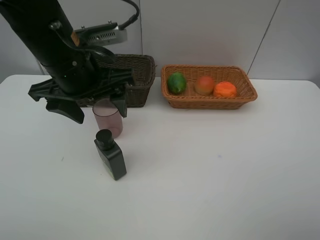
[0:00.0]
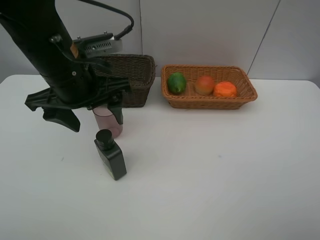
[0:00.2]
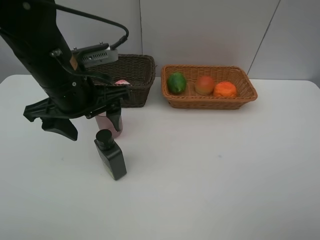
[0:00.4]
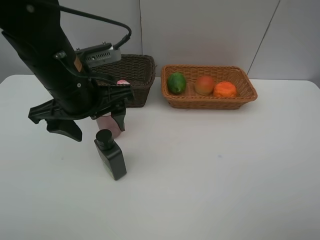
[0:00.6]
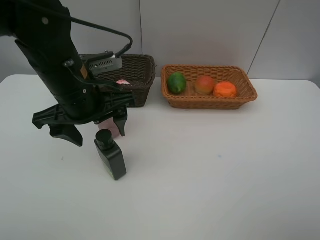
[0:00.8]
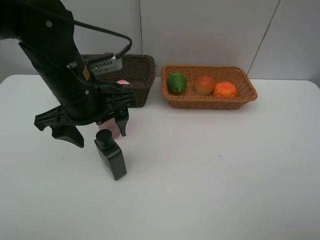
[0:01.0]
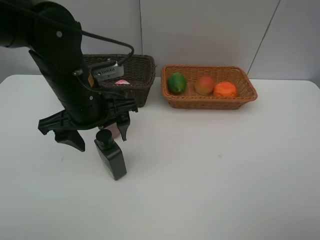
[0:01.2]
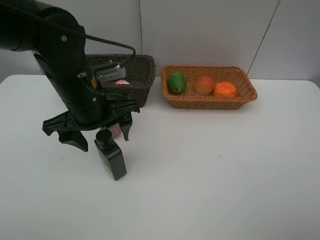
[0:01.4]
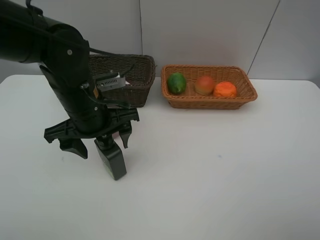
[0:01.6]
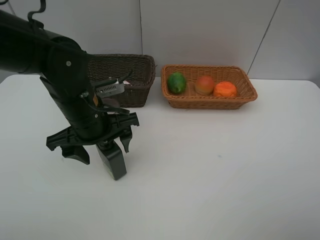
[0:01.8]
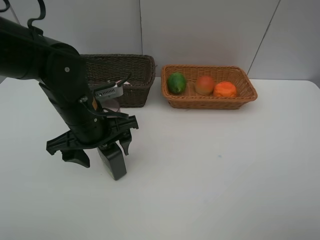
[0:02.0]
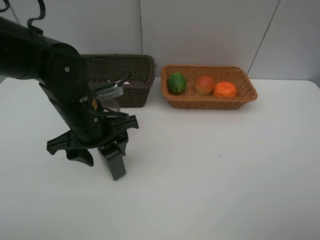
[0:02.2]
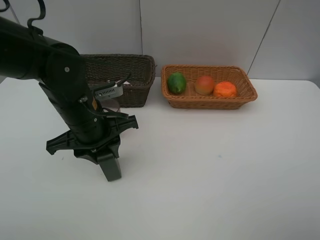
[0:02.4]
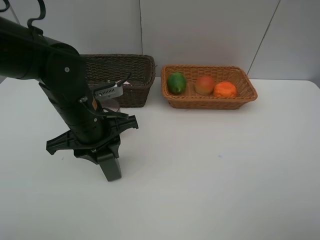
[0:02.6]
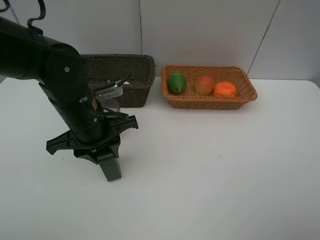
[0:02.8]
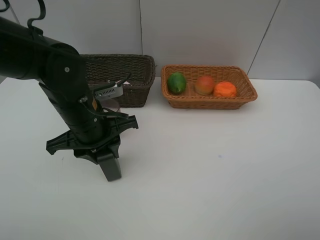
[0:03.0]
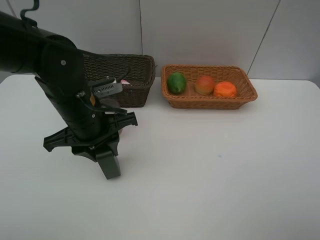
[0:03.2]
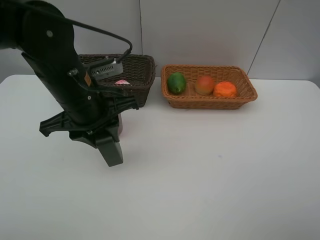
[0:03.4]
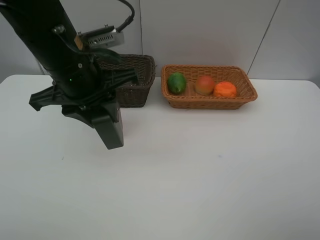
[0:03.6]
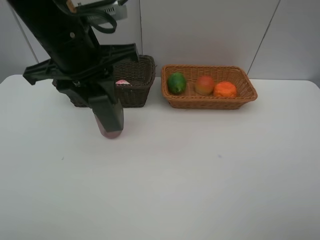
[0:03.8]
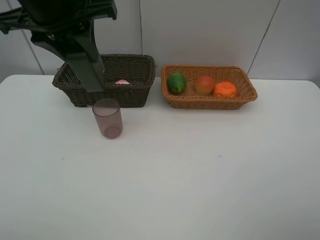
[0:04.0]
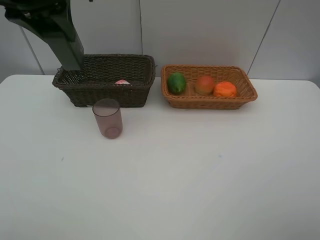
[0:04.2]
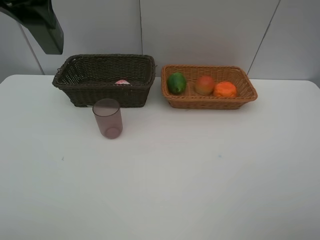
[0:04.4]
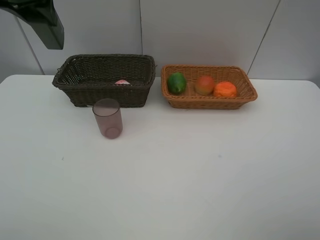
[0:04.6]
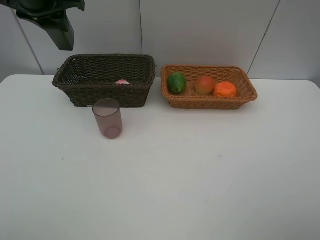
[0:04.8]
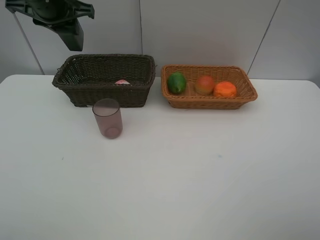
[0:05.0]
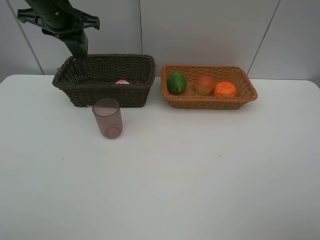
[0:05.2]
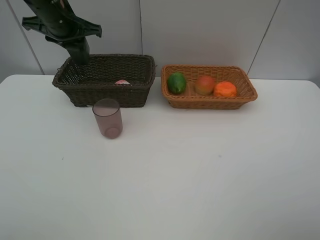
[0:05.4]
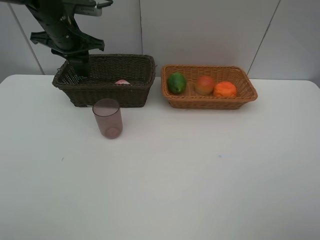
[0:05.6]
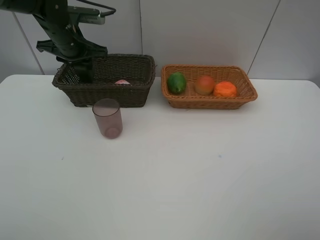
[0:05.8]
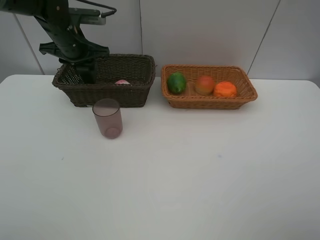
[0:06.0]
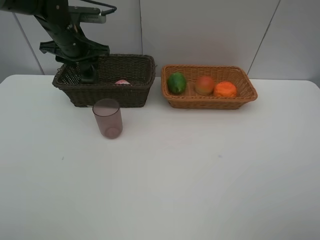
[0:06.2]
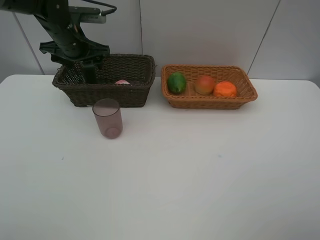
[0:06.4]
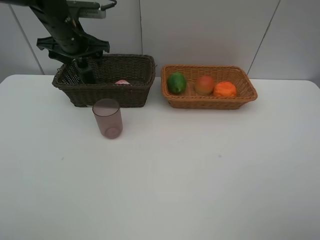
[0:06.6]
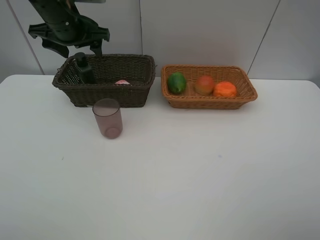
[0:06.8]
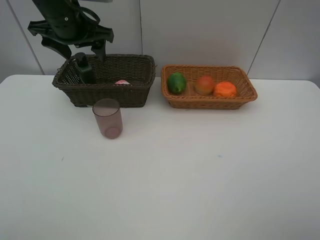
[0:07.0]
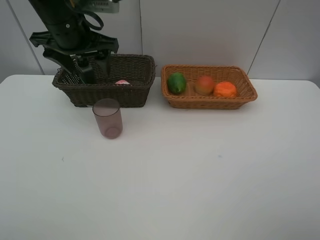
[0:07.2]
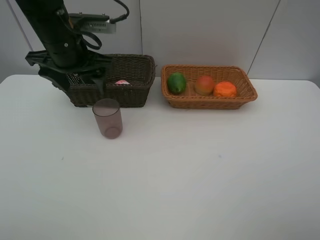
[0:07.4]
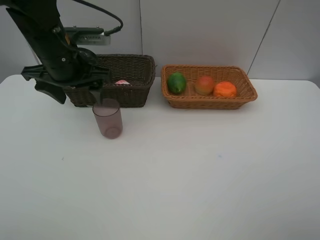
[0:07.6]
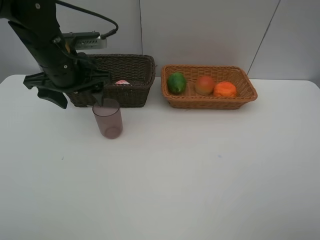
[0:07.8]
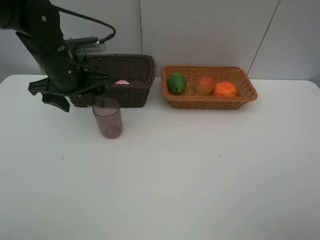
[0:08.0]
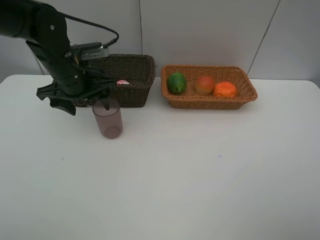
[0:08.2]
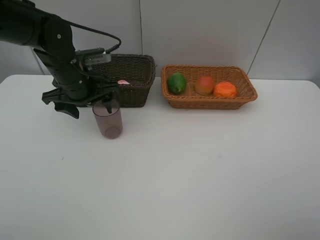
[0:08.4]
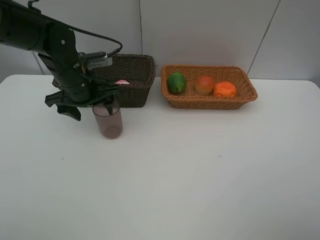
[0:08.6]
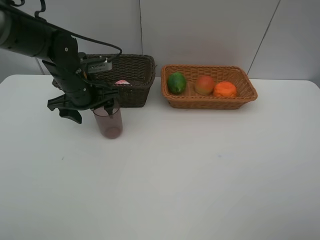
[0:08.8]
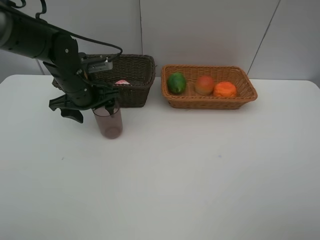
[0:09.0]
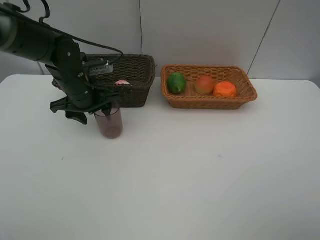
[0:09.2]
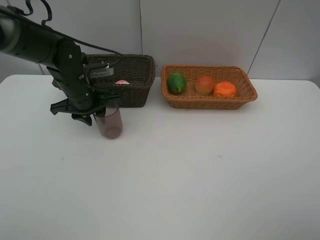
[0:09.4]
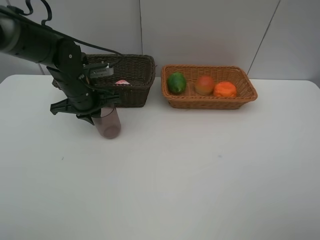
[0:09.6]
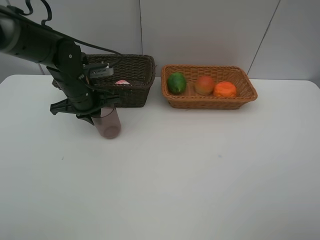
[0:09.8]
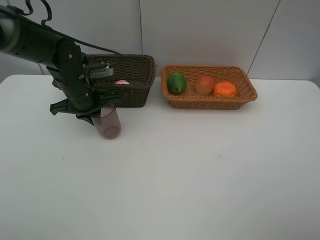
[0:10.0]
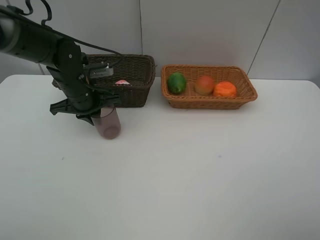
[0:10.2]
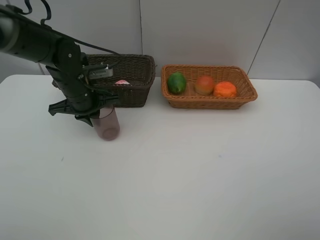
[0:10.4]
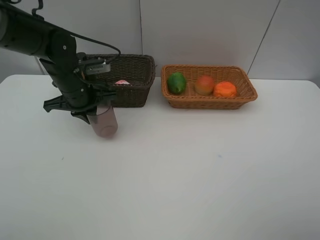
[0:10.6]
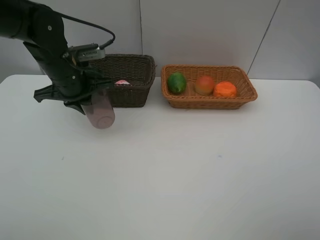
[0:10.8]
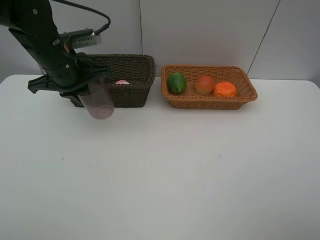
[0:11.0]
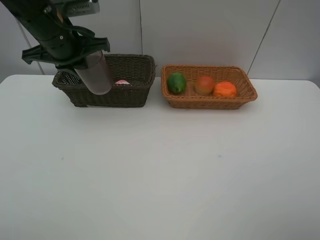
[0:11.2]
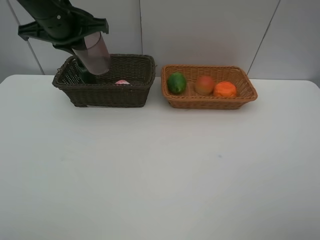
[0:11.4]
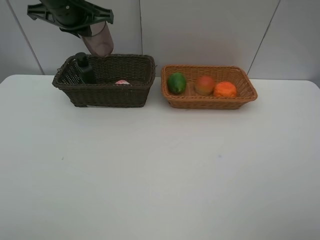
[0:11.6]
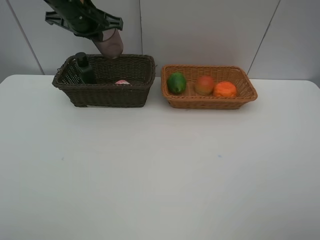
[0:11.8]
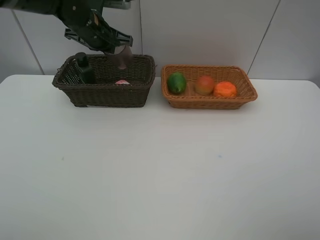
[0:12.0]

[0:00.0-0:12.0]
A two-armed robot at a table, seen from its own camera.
Task of the whole recording: place multiple objects separately in different baskets.
Step, 0:00.0 to 0:03.2: Pick up the facial cleanser with left gripper.
Step, 0:03.4 to 0:07.2: Place the facial cleanser in the dark basket with left gripper.
Step, 0:07.4 to 0:10.6: Pick up the brown cup with left gripper.
0:00.0 to 0:01.6: The left gripper moves downward, some 10 cm.
0:01.6 to 0:03.0: The left gripper closes up.
0:03.0 to 0:04.4: The left gripper shifts approximately 25 cm upward, forward and to the left.
0:04.4 to 0:06.0: The left gripper goes some 20 cm downward and forward.
0:06.0 to 0:07.6: The left gripper goes approximately 10 cm backward, and opens up.
0:07.6 to 0:09.0: The left gripper heads downward, covering some 10 cm.
0:09.0 to 0:10.4: The left gripper closes up.
0:10.4 to 0:12.0: The left gripper moves upward and forward, roughly 15 cm.

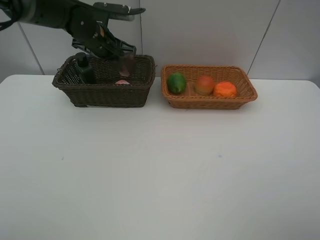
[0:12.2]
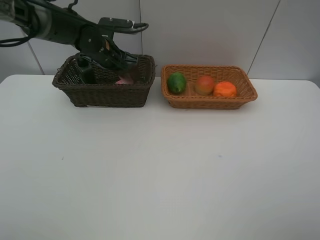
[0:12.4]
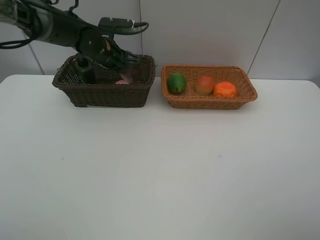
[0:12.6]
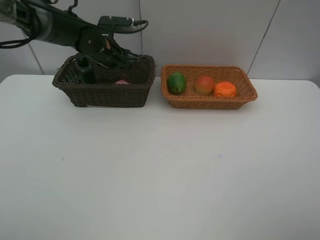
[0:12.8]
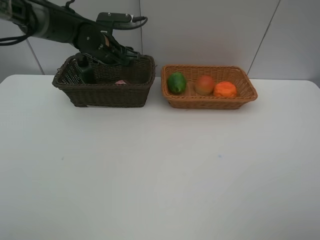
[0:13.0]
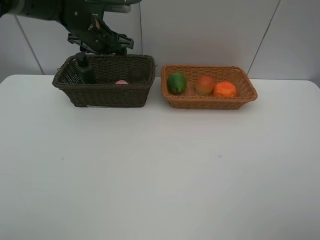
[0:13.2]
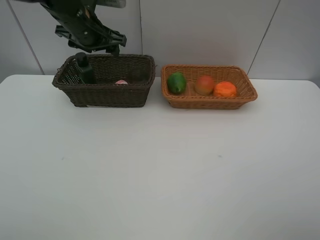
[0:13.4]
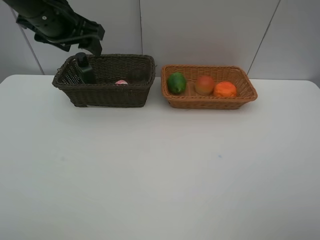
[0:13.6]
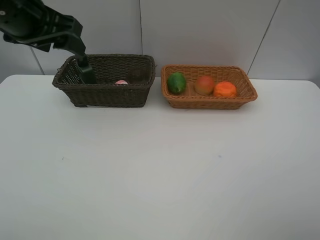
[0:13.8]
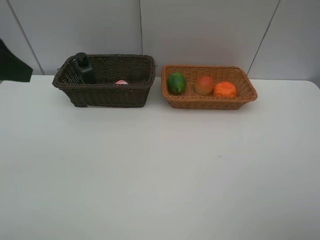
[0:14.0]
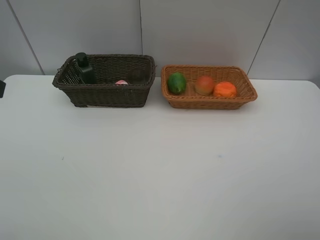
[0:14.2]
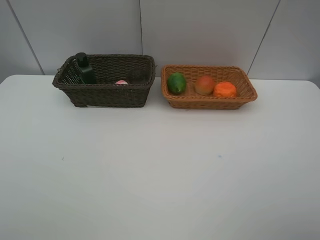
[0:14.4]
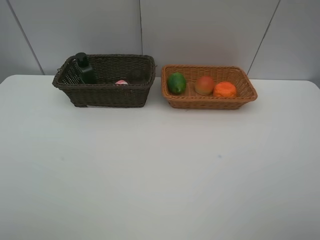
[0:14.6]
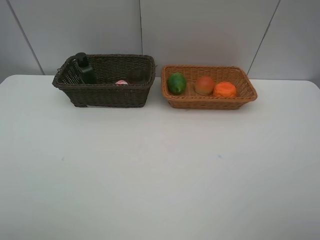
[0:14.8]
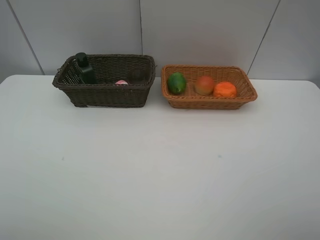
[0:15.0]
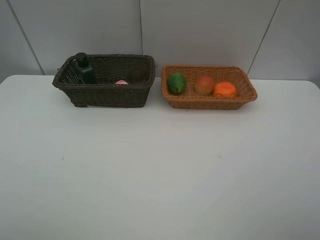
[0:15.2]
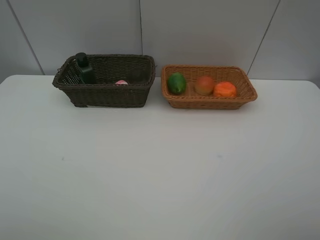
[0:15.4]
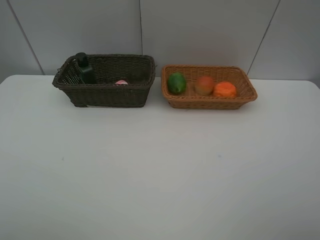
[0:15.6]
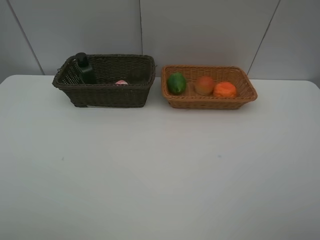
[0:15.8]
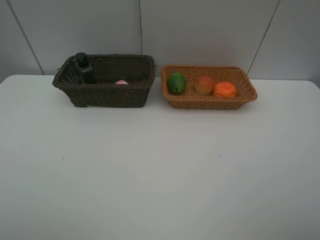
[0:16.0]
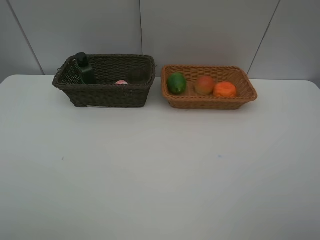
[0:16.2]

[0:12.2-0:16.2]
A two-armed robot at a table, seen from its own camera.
Task of the whole recording: place multiple objects separately in different baskets.
Step, 0:12.2 to 0:13.6: Place the brown cup in the dark basket with left gripper.
0:12.2 to 0:13.6: The left gripper is displaced backward and upward by some 15 cm, and opens up.
0:13.6 to 0:14.8: The left gripper moves backward, about 30 cm.
